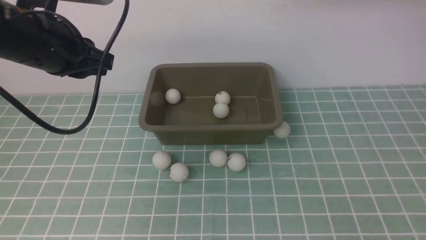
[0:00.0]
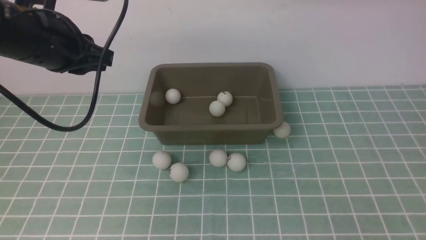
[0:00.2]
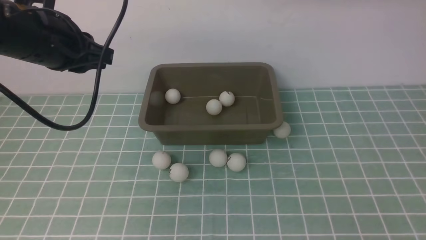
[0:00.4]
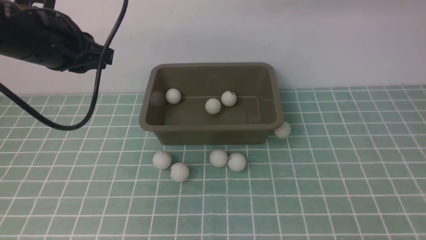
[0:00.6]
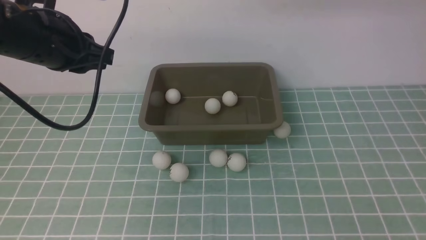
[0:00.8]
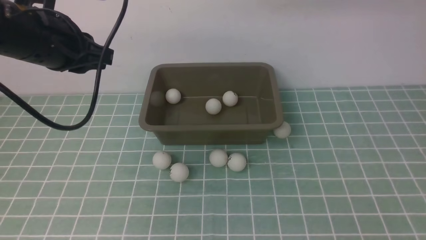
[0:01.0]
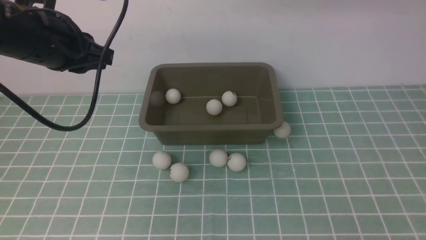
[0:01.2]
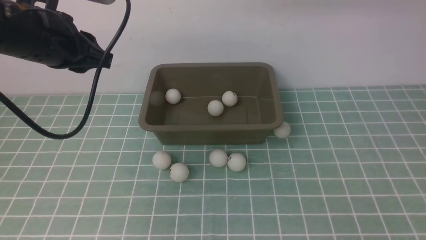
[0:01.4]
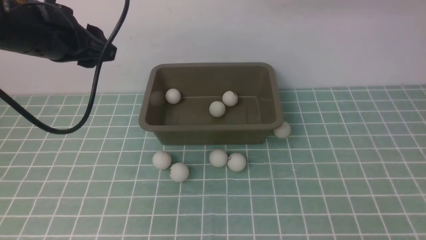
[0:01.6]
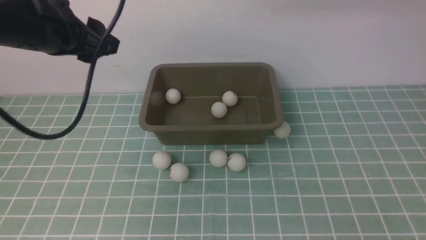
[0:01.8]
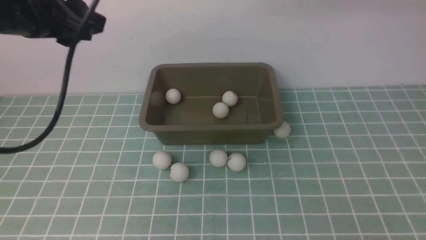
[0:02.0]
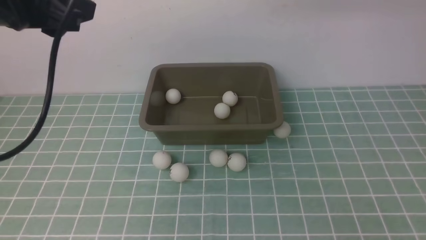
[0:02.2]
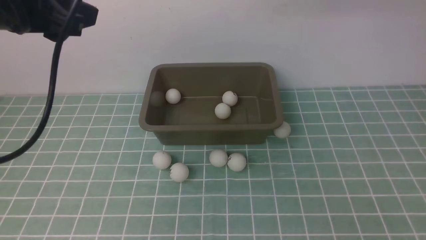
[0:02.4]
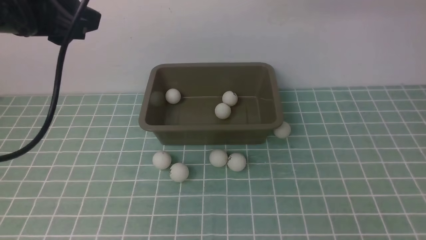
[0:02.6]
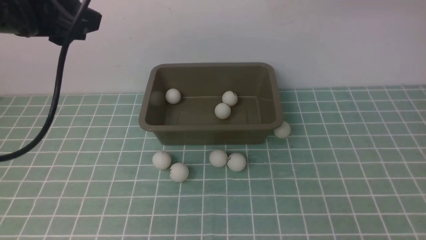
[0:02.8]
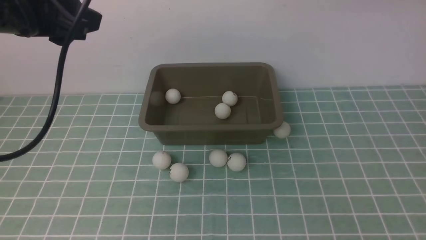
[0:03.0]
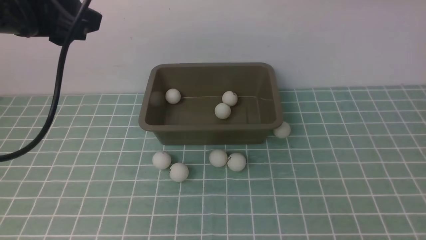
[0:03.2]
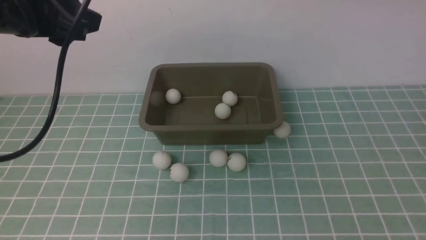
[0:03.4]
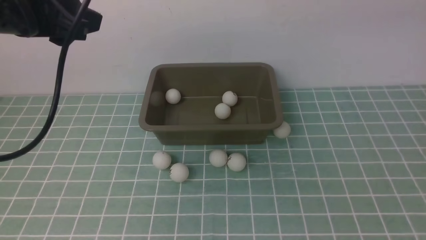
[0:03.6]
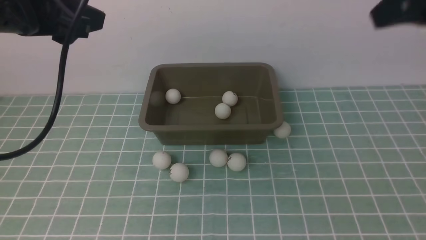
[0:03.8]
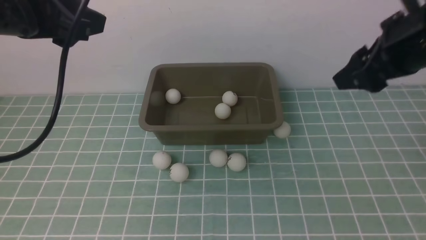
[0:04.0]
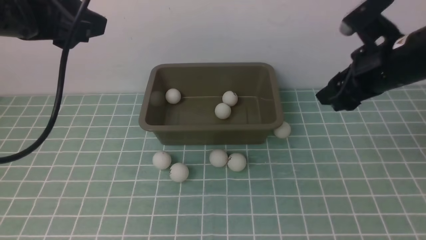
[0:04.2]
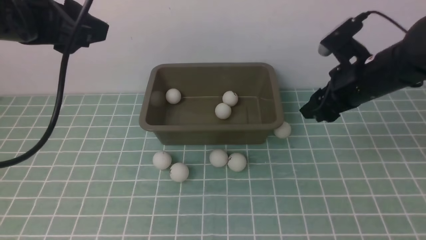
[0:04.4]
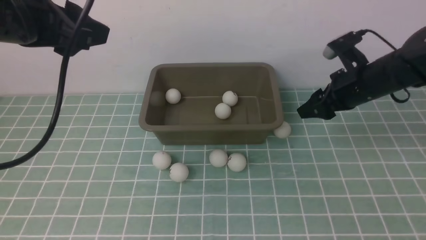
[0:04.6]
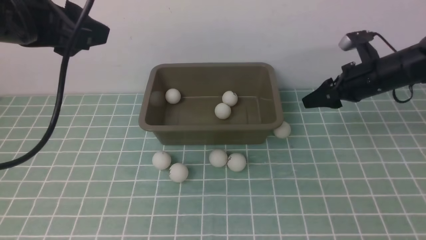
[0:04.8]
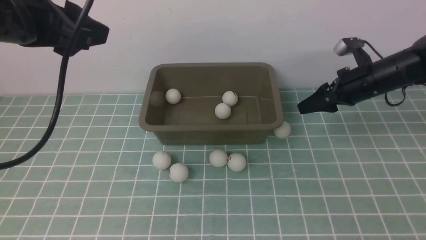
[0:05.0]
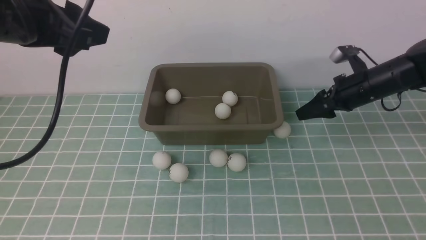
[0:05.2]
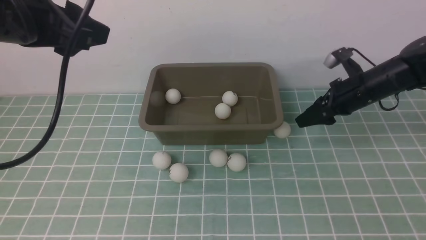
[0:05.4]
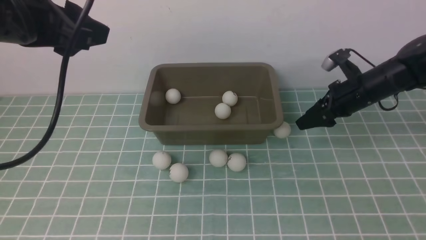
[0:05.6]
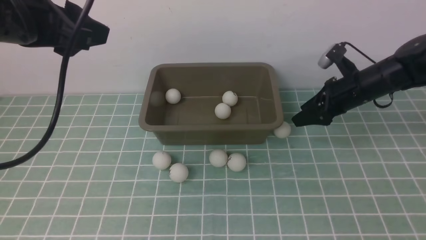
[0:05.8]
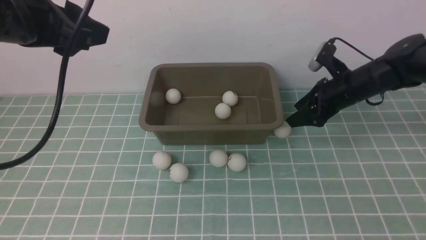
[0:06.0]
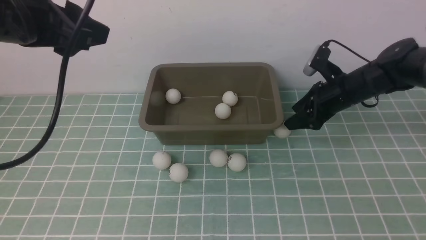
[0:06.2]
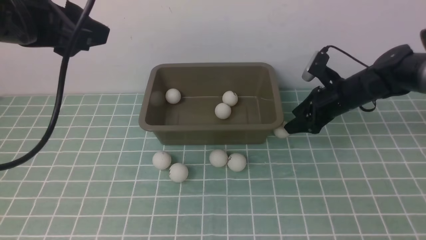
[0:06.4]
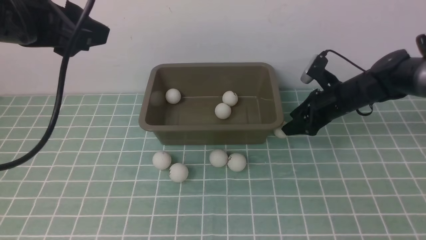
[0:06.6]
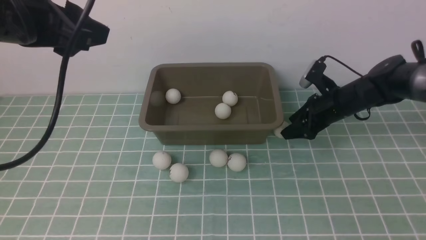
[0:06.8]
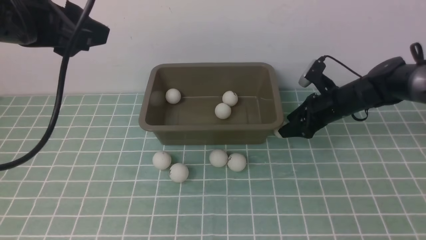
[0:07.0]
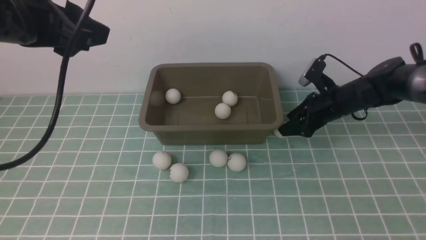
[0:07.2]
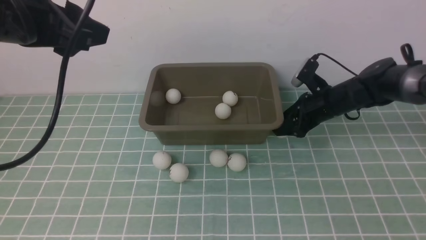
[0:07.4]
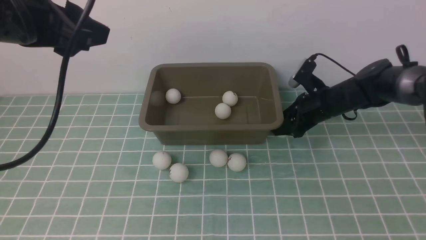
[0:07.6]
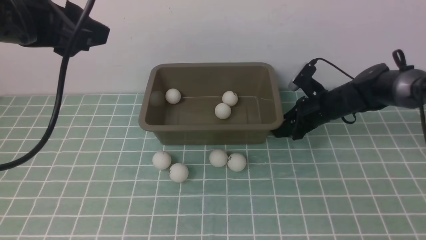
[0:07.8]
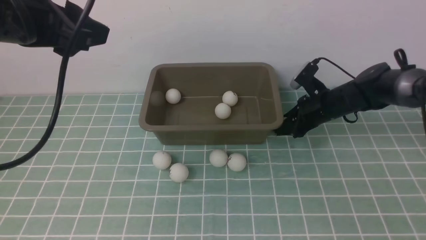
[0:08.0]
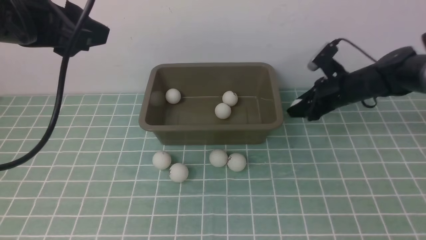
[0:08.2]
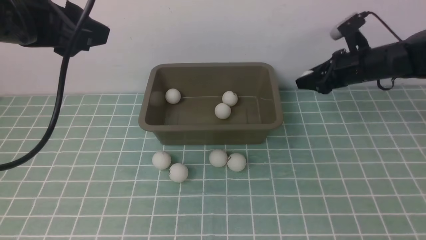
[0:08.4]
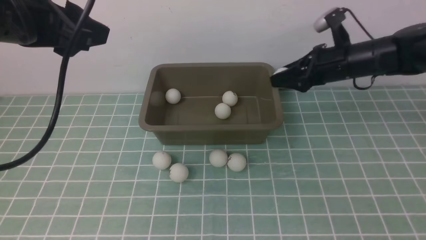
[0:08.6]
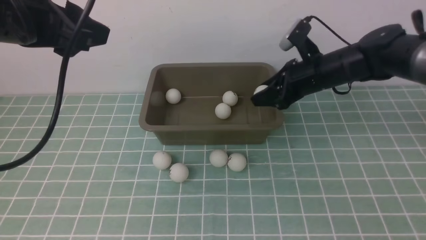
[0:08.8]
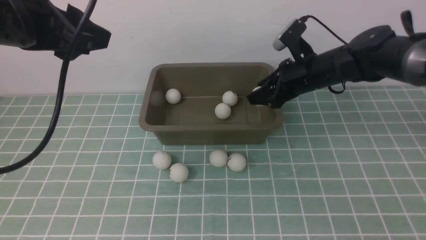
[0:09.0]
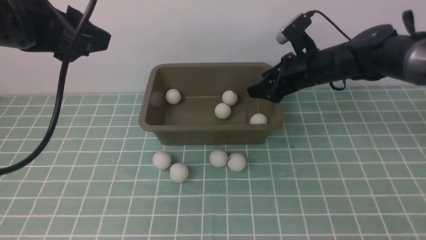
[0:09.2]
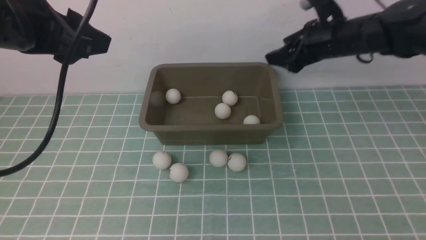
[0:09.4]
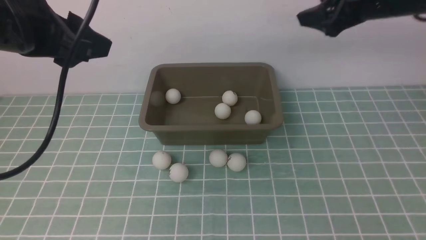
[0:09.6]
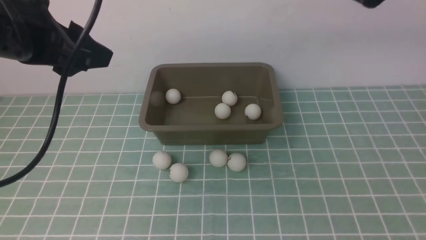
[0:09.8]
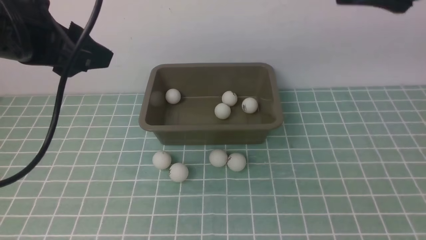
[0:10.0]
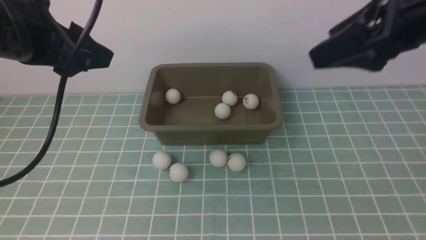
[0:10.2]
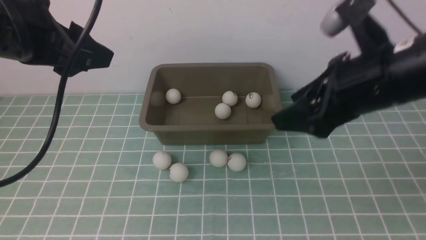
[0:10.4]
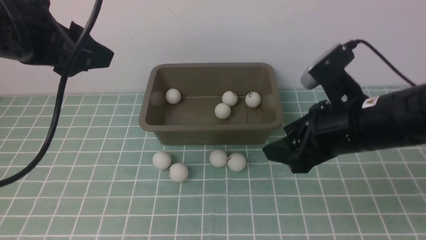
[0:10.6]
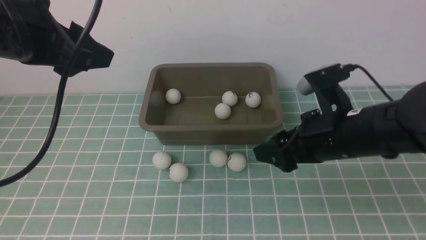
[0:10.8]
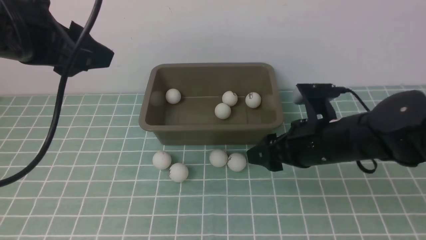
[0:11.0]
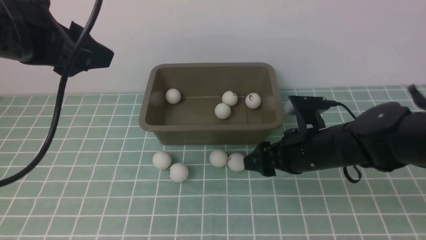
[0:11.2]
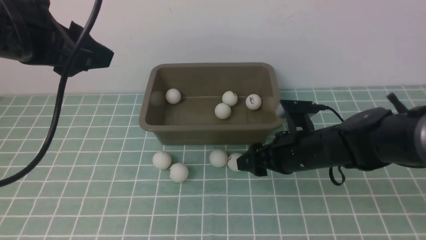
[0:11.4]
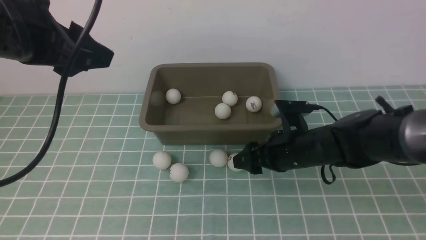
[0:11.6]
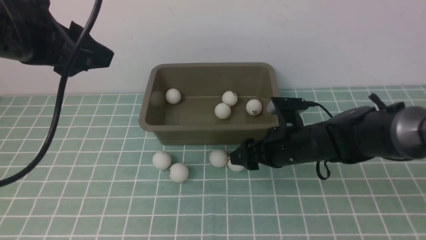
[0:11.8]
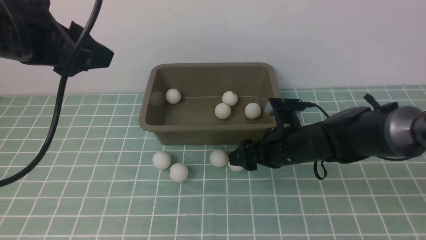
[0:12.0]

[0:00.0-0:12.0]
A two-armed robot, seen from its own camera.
Step, 0:00.0 to 0:08.2: use the right arm to clamp the table tennis ball closest to it.
Step, 0:08.4 to 0:09.2: use the right arm to put the table tennis ball into the box.
0:00.0 to 0:01.6: The left gripper opens up.
0:01.6 to 0:03.0: The left gripper shifts by about 5 cm.
0:03.0 to 0:04.4: The right gripper shifts approximately 30 cm downward.
0:04.4 to 0:06.0: The right gripper moves downward, approximately 5 cm.
0:06.0 to 0:07.6: The right gripper changes place by approximately 5 cm.
0:07.6 to 0:09.0: The right gripper is displaced upward by approximately 10 cm, and closes, then reopens.
0:09.0 to 0:10.4: The right gripper travels backward and upward by some 20 cm.
0:10.4 to 0:12.0: The right gripper travels downward and forward by roughly 20 cm.

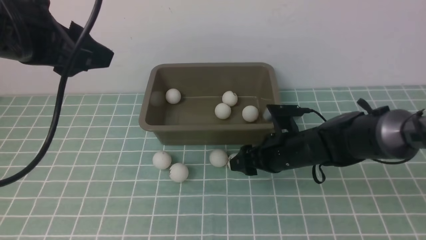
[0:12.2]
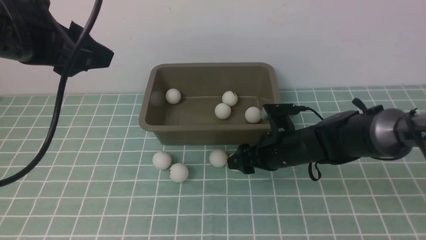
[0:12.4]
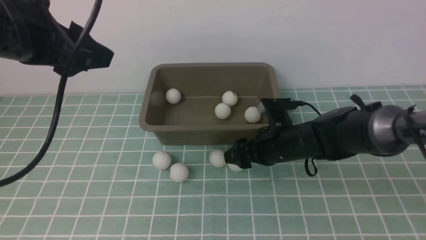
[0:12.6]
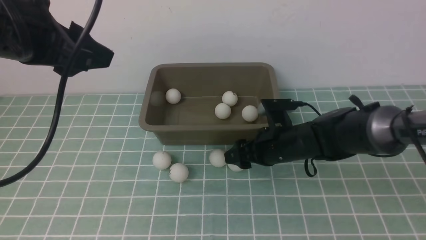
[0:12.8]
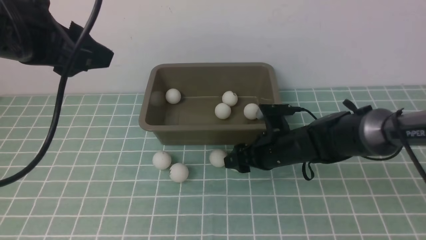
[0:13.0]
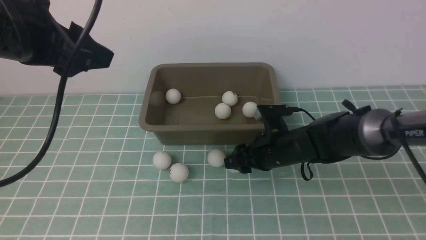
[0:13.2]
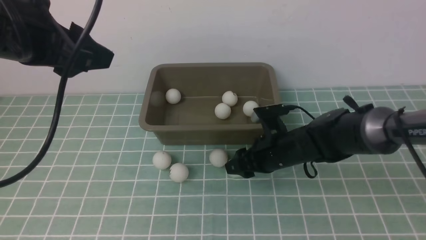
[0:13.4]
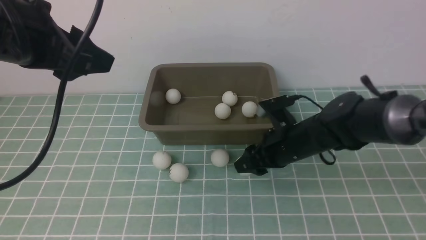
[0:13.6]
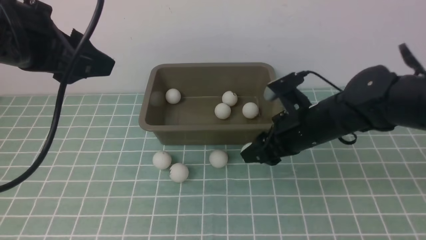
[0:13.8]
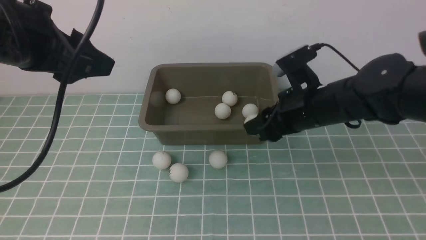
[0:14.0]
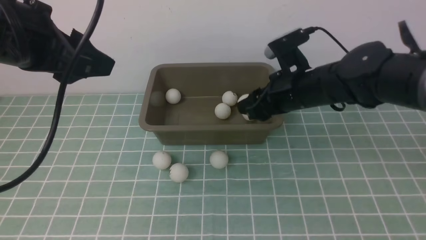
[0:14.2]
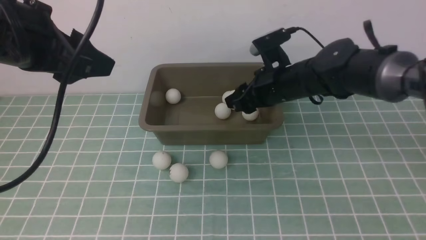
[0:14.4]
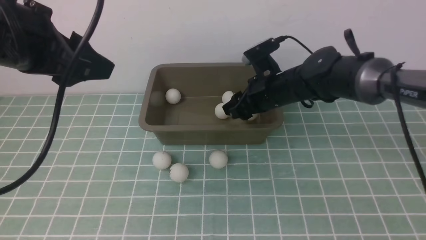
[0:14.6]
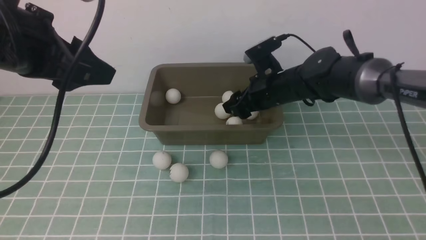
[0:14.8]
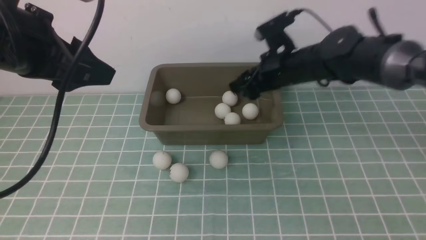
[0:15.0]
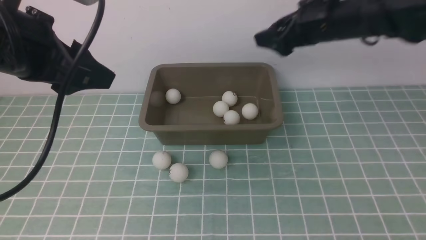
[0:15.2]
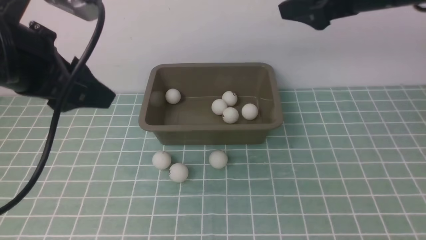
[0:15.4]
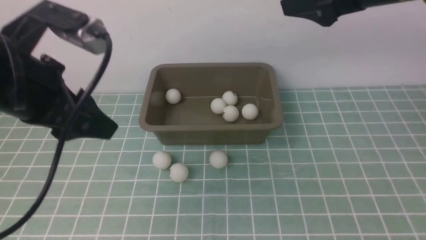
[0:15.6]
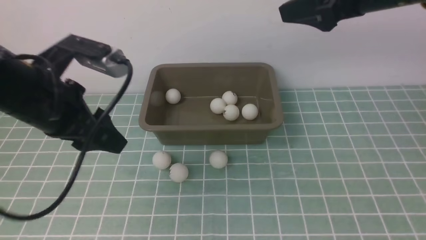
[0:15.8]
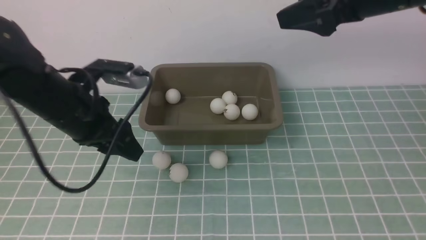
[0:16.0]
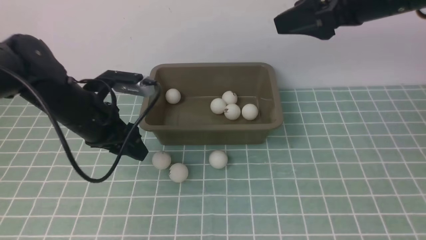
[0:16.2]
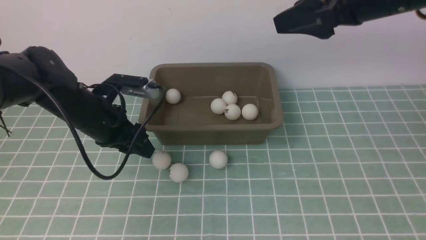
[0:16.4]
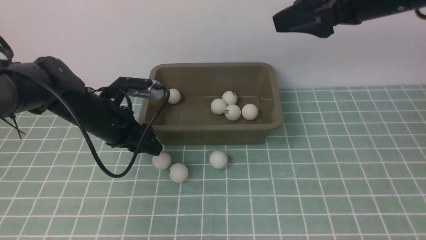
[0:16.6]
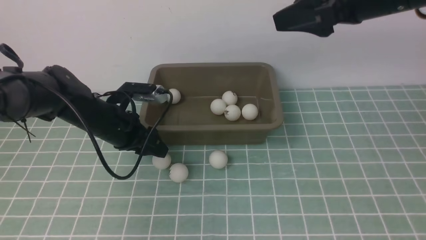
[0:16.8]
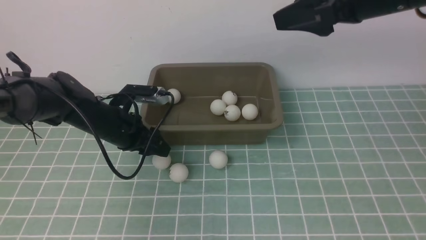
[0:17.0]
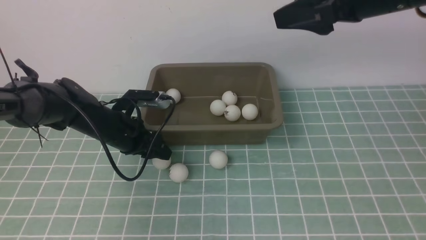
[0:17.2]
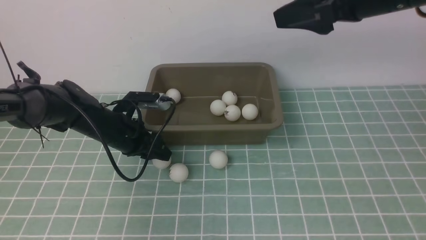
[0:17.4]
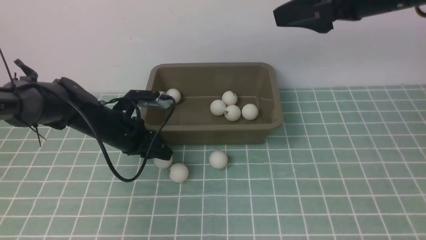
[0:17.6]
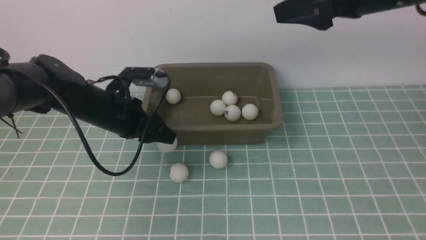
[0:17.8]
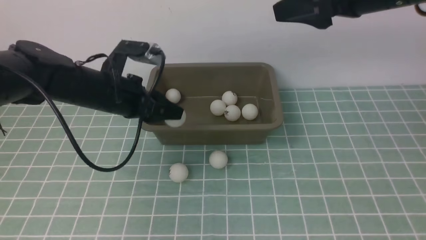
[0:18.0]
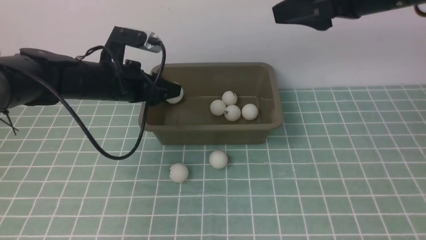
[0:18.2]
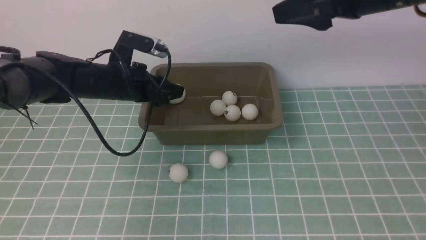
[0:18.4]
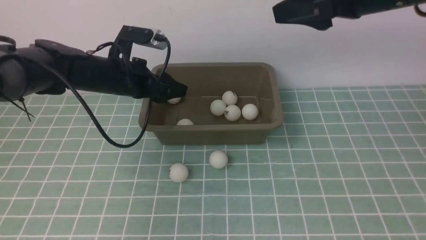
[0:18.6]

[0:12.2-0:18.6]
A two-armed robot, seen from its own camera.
Step, 0:13.8 to 0:15.0: use the right arm to put the table tennis ball into the box.
Step, 0:15.2 to 0:17.8: use the left arm to clamp the table tennis ball closest to it.
0:12.2 to 0:13.8: The right gripper is displaced upward by about 10 cm, and closes up.
0:13.8 to 0:15.4: The right gripper moves upward, roughly 15 cm, and opens its fingers.
0:15.4 to 0:17.0: The left gripper goes roughly 25 cm downward and forward.
0:17.0 to 0:18.6: The left gripper heads upward, covering approximately 15 cm.
